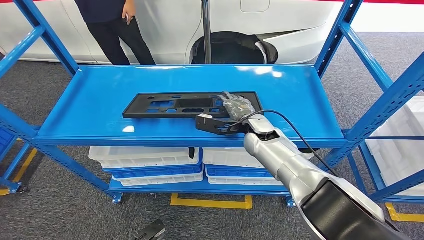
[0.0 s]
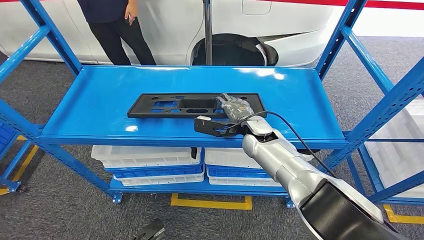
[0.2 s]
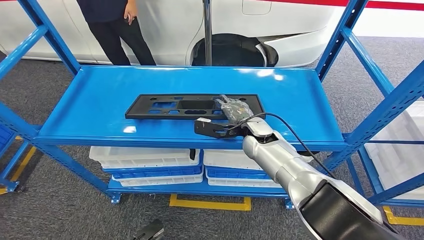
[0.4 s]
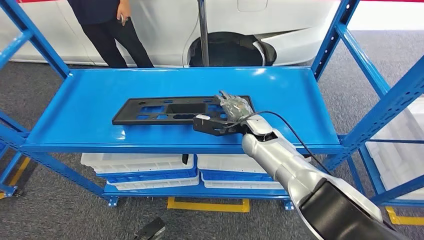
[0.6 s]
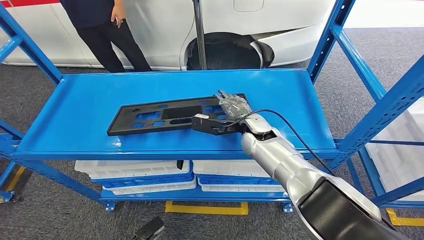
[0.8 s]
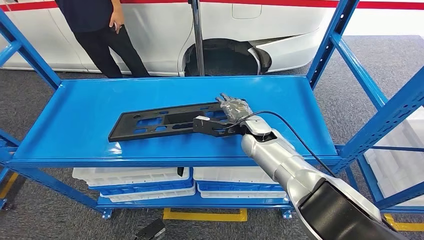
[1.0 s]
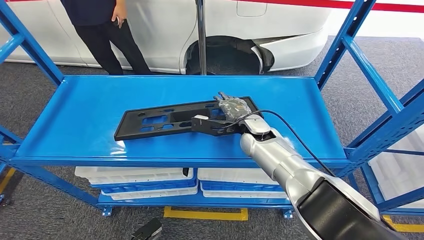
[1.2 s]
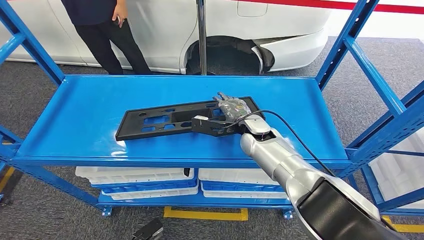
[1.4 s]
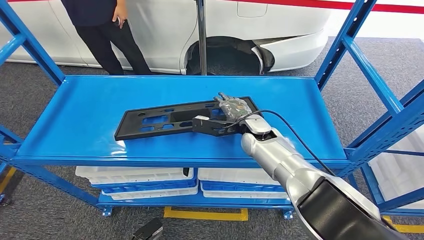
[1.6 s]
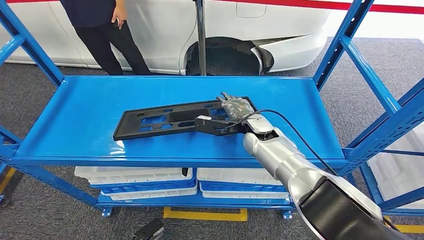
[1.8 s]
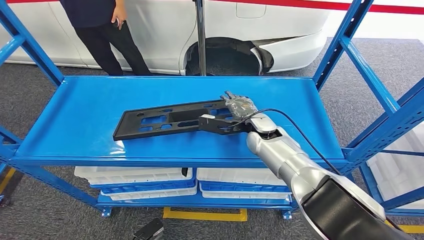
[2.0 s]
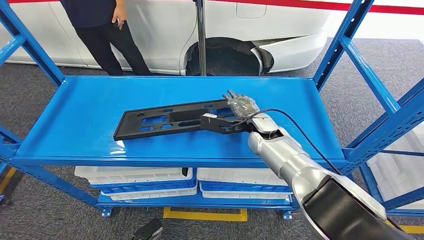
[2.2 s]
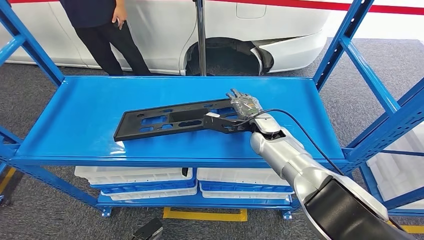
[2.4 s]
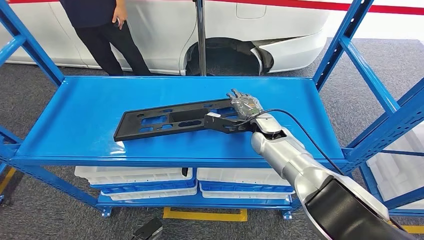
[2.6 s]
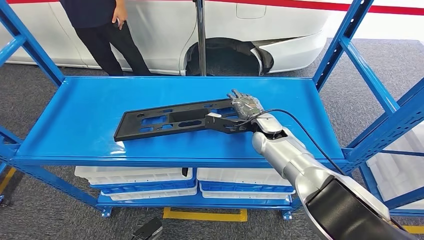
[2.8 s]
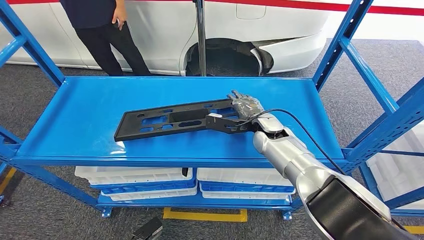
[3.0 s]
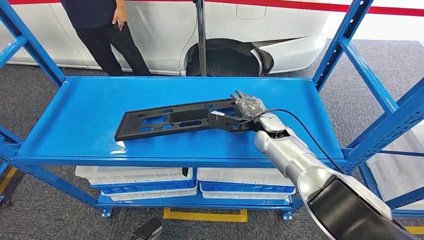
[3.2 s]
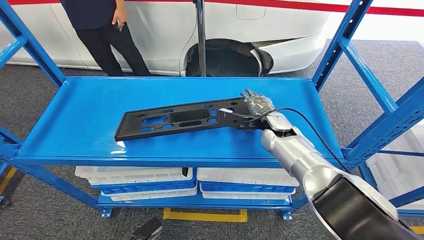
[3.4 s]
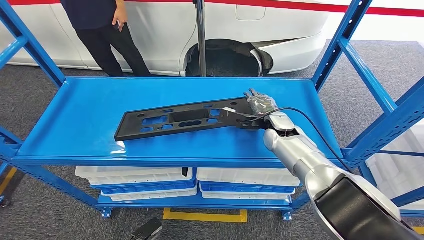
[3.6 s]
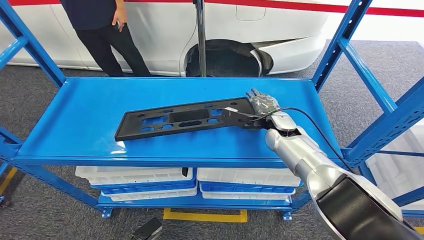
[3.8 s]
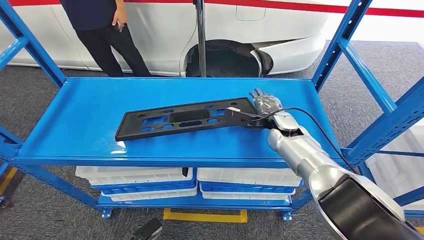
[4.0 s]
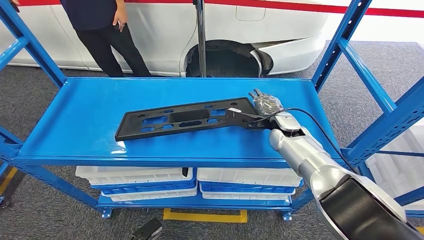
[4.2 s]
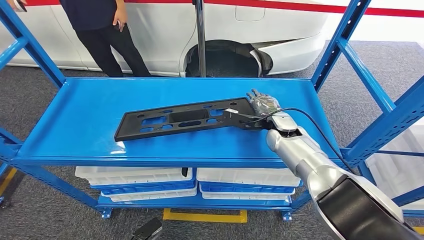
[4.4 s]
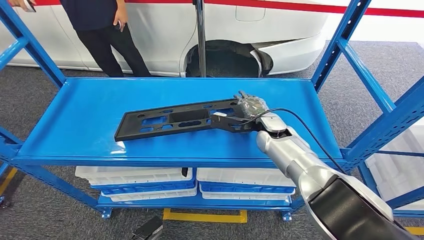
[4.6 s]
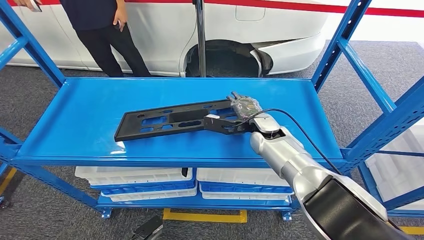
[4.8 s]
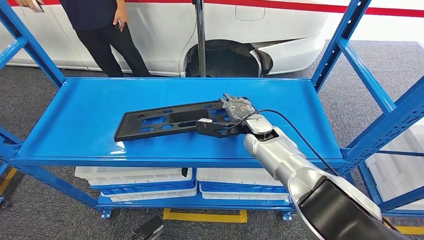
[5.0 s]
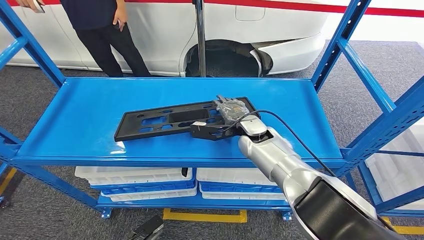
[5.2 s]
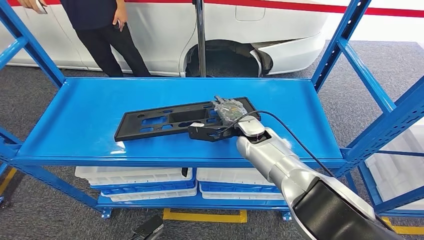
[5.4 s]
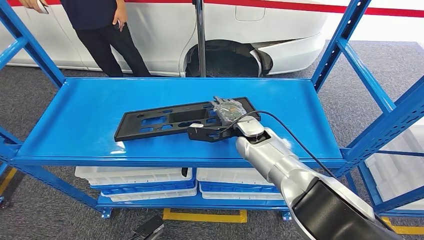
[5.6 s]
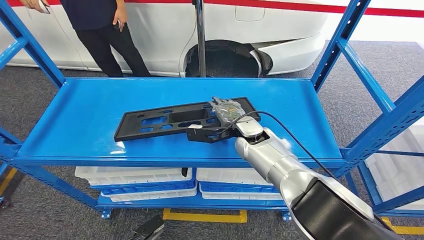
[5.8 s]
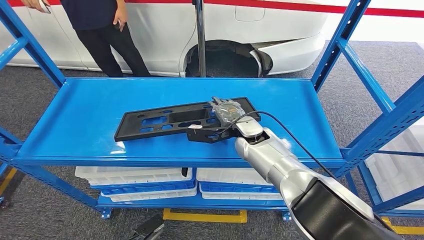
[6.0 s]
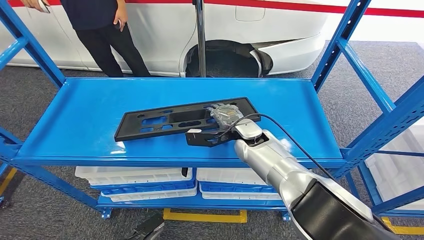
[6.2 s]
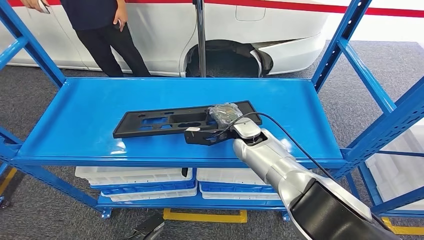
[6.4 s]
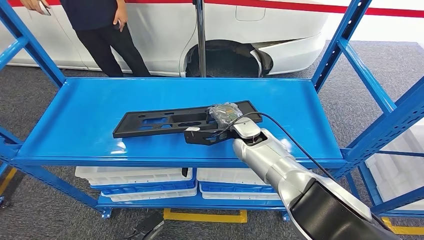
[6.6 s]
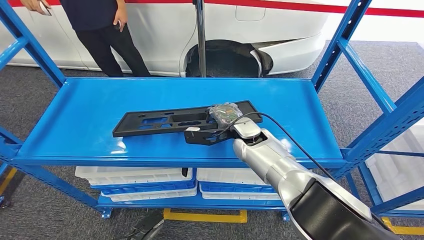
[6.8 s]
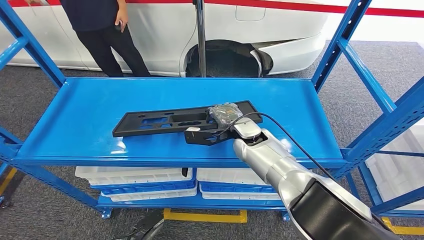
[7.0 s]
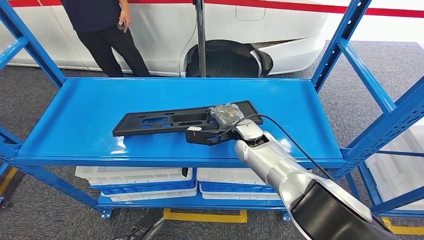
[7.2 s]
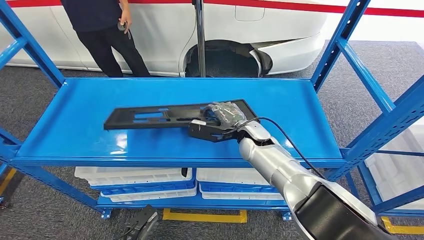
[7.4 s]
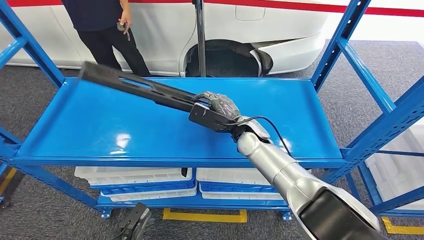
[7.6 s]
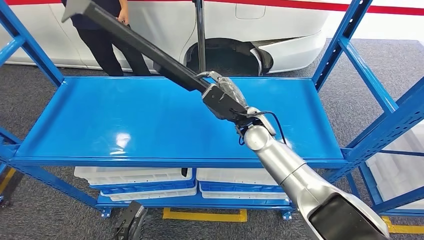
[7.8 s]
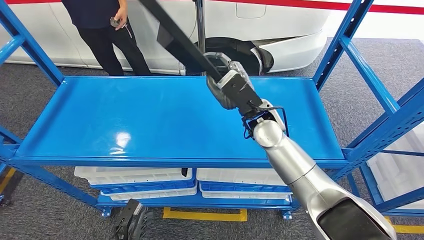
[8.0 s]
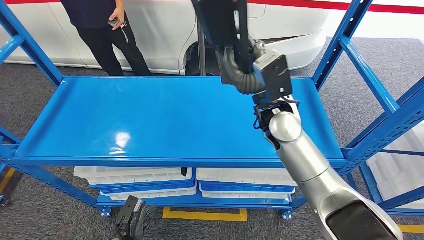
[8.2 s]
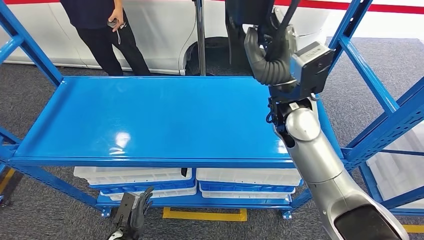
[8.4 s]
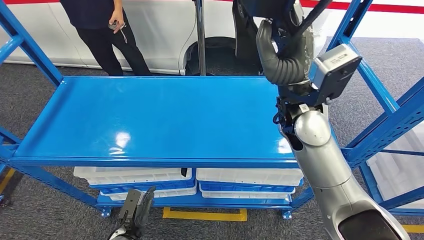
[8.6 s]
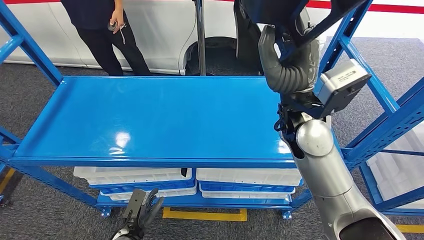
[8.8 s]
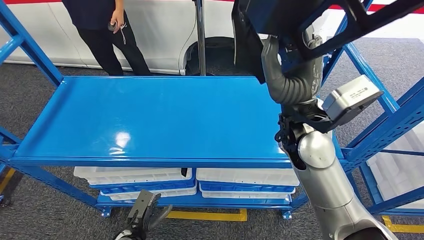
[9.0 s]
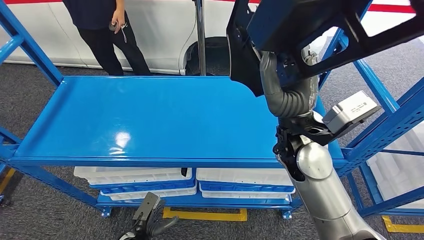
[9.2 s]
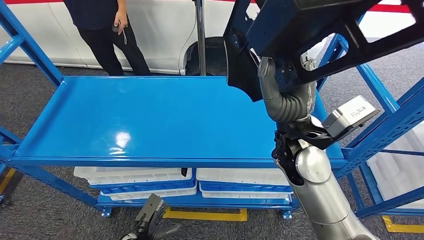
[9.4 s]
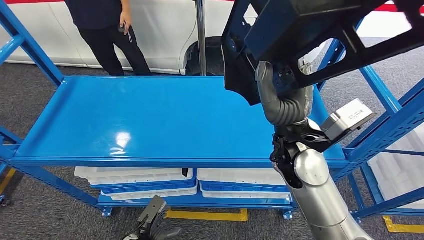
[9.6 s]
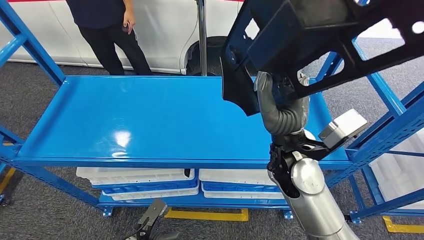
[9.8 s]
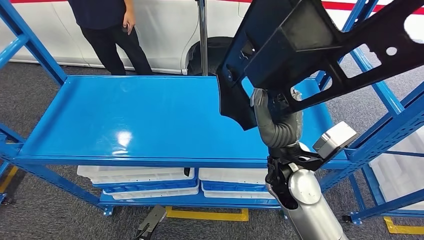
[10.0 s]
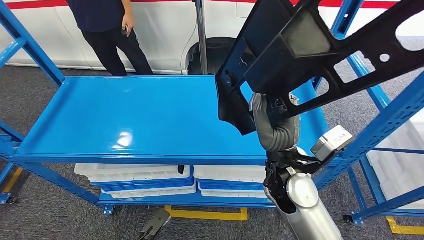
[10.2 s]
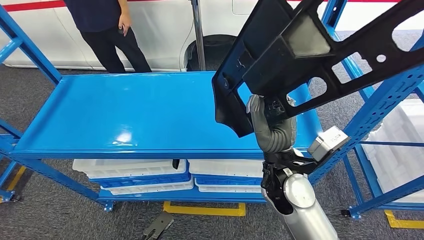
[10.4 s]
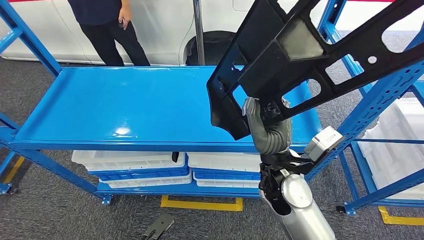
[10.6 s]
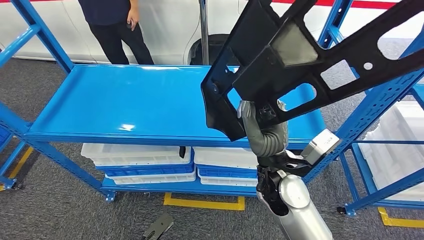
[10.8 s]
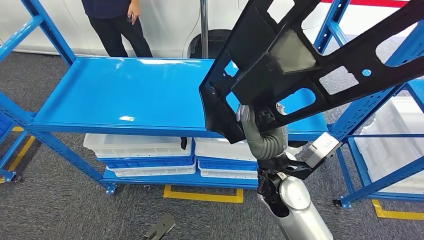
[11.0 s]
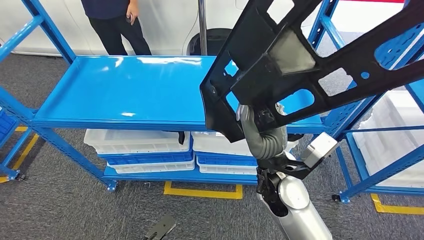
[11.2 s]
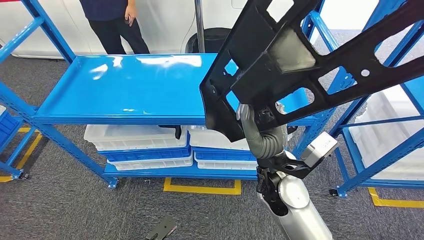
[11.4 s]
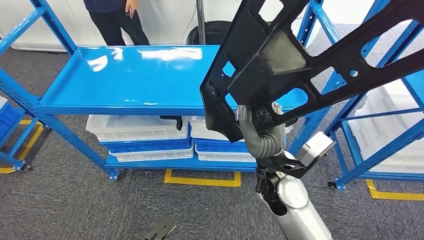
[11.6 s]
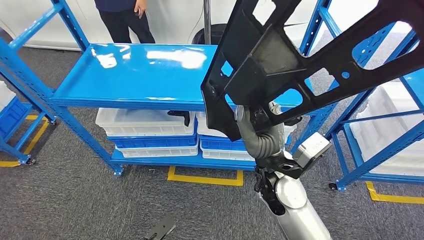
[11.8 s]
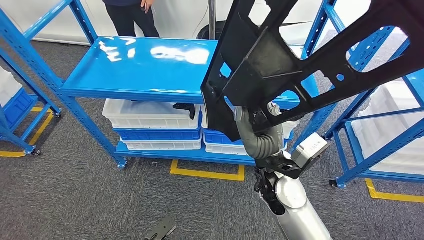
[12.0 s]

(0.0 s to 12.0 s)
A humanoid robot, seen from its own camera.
Step, 0.0 s - 8.2 s: Pick up the large material from the shelf.
1.6 s - 3.0 s: The hands move only a little.
3.0 s - 4.4 s: The hands make only small movements.
4.4 s - 6.0 s: The right hand shifts approximately 10 cm to the left.

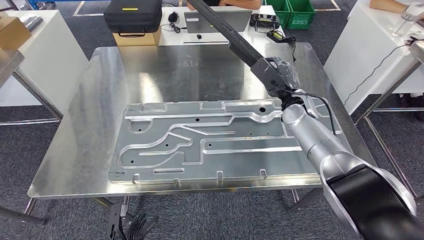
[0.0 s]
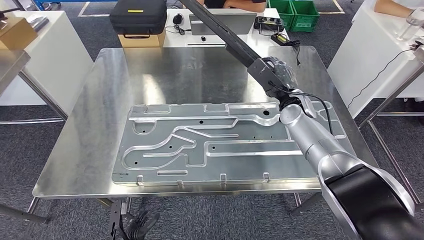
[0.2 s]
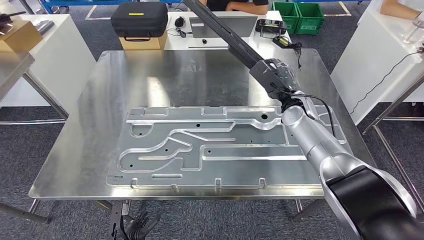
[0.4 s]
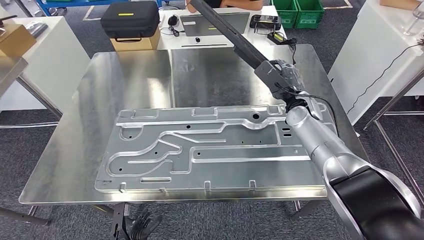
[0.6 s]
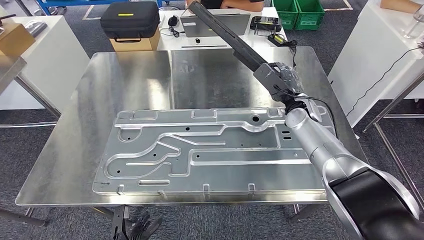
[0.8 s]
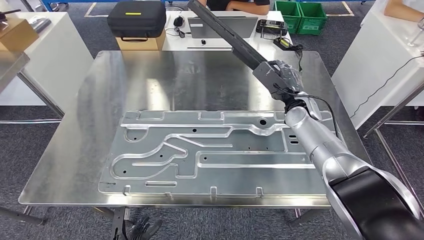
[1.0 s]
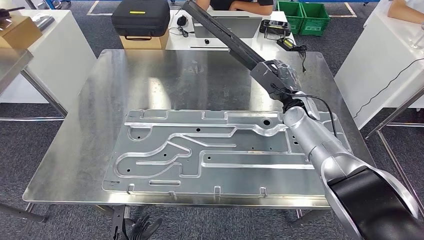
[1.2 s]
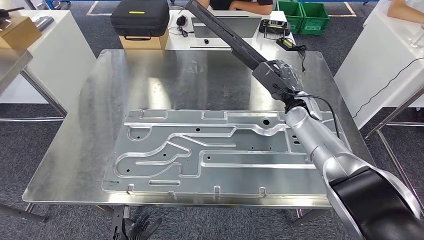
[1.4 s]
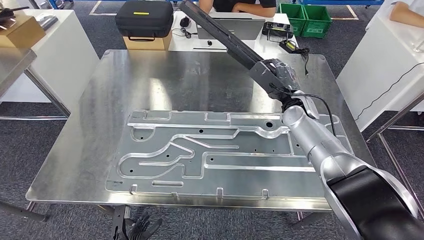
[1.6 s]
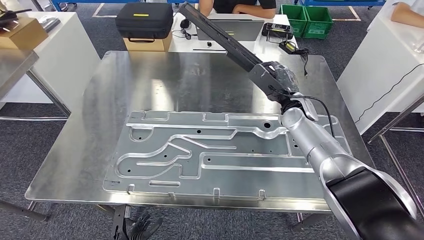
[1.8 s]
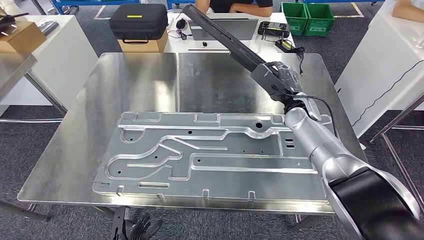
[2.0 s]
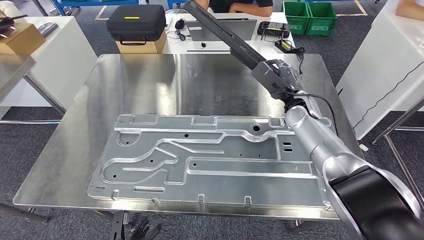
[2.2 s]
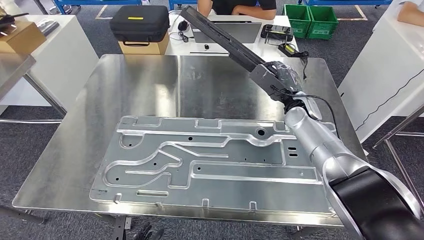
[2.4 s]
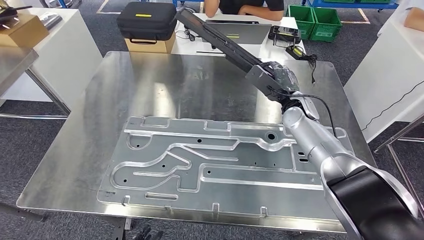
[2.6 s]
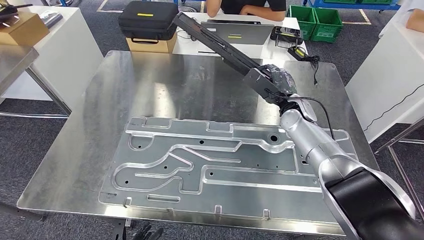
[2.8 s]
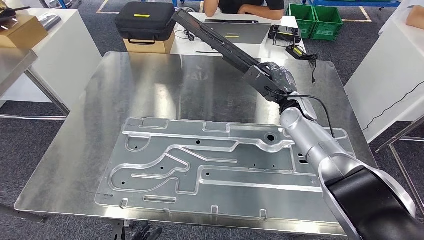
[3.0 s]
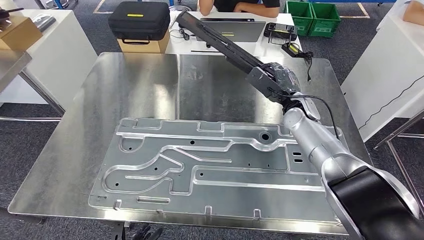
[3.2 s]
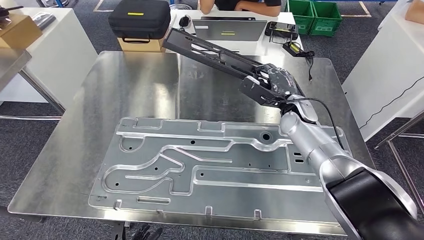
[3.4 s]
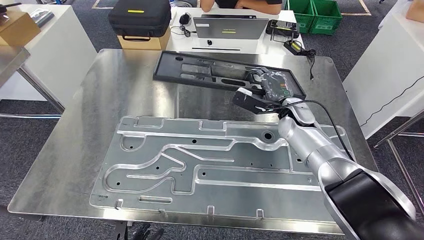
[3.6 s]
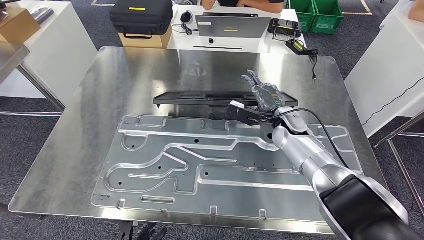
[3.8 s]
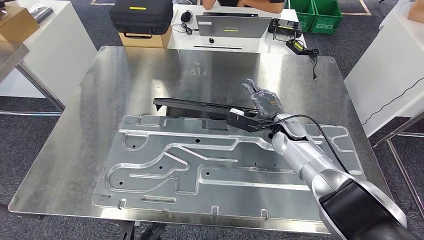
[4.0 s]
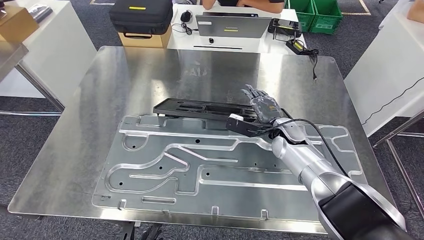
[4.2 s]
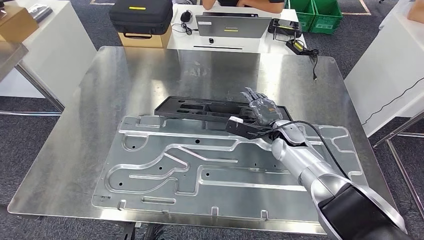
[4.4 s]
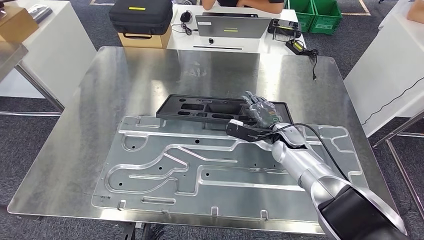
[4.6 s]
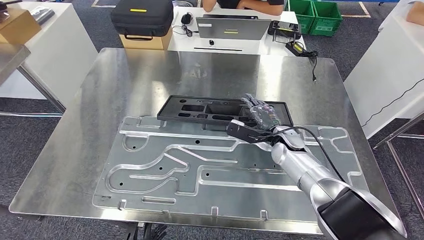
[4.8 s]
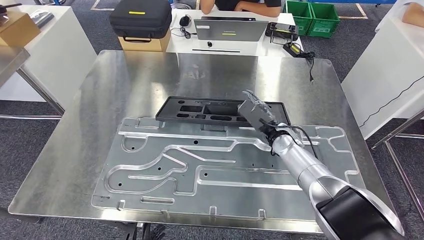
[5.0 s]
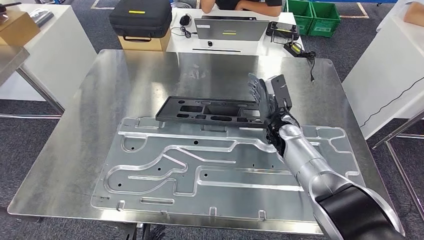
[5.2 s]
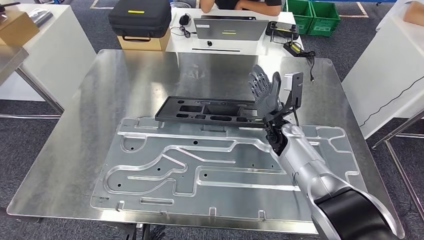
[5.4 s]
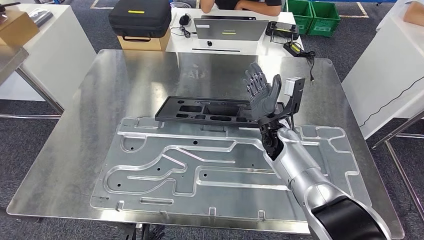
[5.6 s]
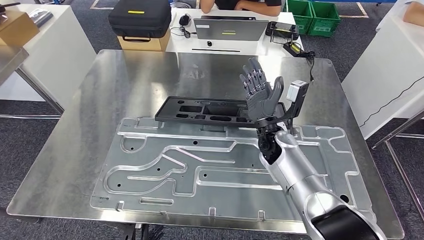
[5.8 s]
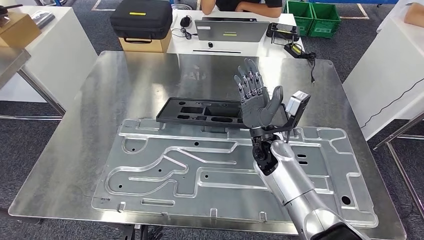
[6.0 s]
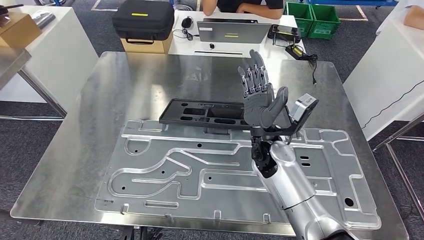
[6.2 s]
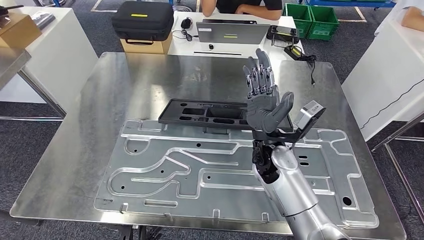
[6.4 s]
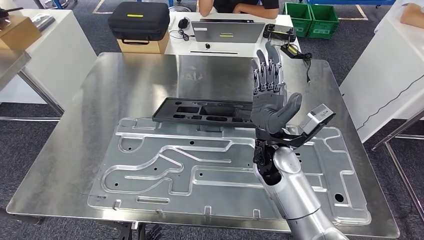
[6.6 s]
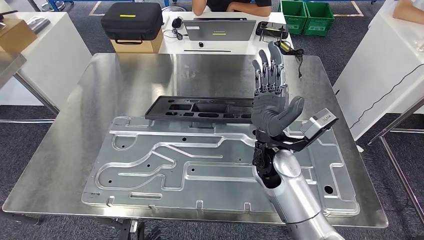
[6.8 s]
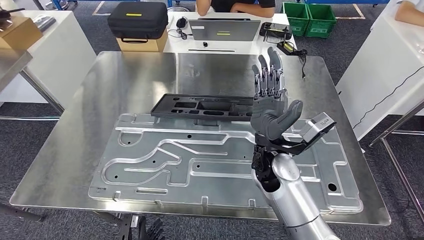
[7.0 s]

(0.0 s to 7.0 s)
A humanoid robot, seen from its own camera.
Step, 0.0 s - 6.0 s: Insert the large material into the corresponding slot on the workbench.
